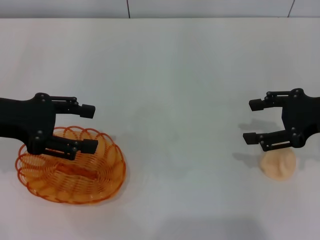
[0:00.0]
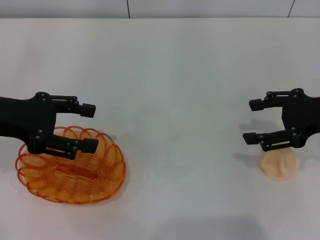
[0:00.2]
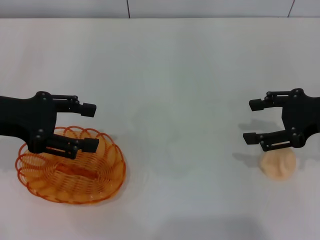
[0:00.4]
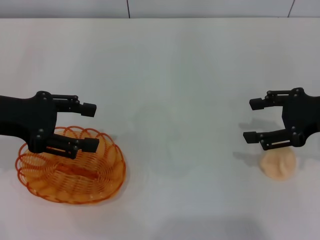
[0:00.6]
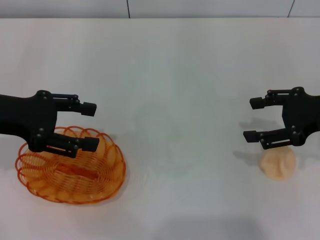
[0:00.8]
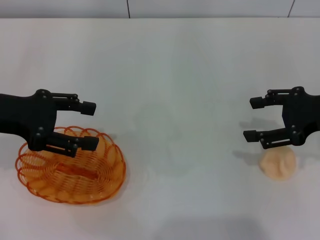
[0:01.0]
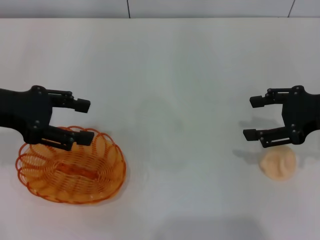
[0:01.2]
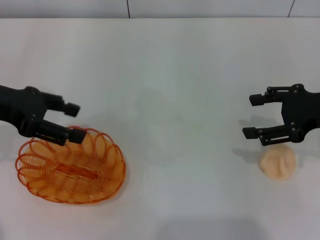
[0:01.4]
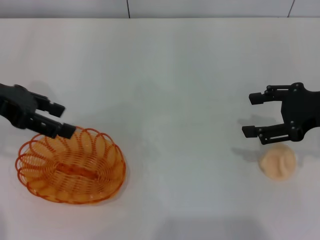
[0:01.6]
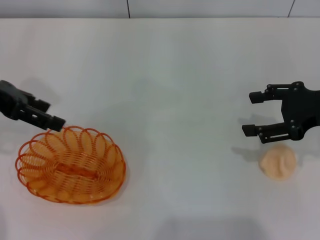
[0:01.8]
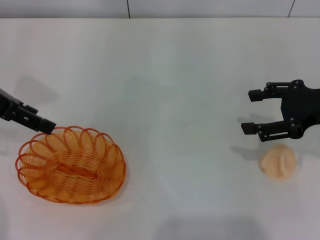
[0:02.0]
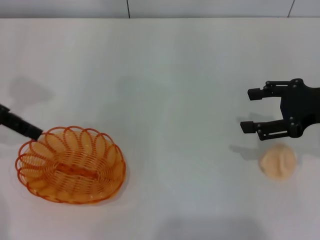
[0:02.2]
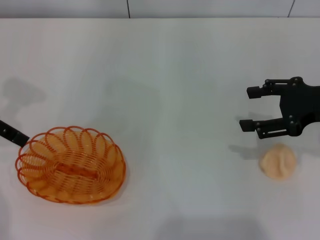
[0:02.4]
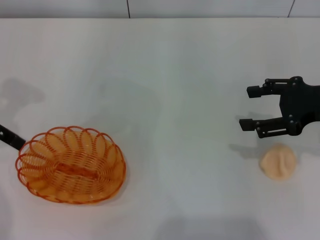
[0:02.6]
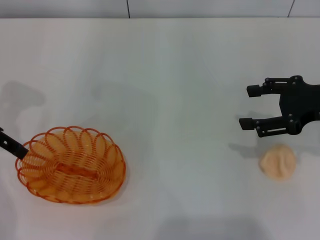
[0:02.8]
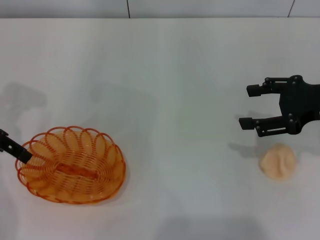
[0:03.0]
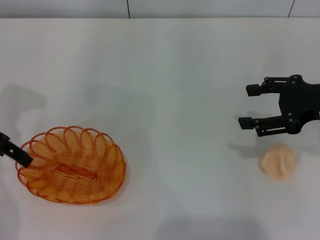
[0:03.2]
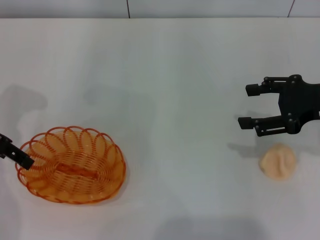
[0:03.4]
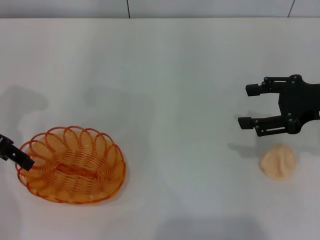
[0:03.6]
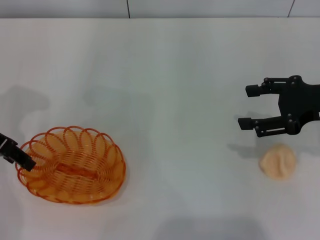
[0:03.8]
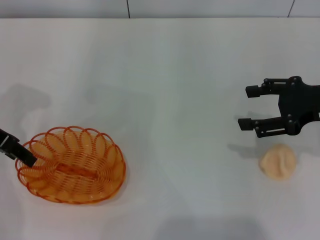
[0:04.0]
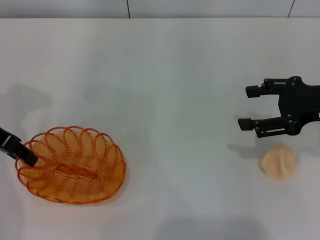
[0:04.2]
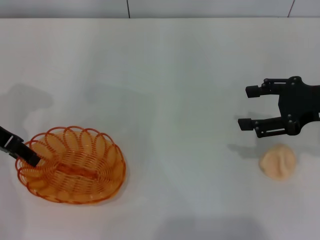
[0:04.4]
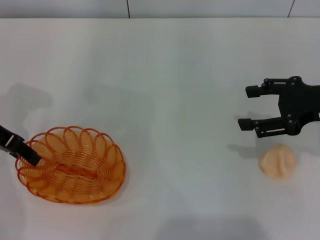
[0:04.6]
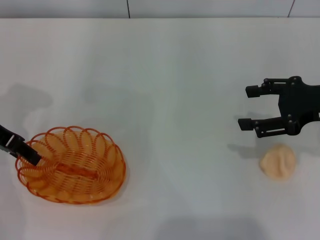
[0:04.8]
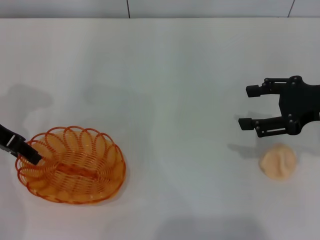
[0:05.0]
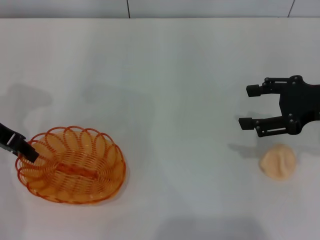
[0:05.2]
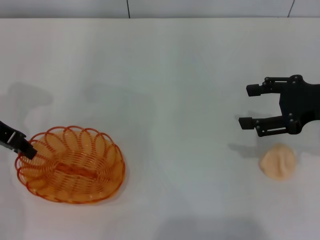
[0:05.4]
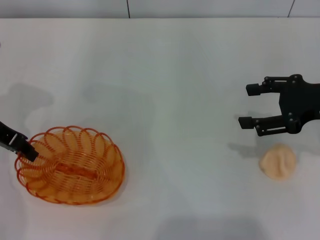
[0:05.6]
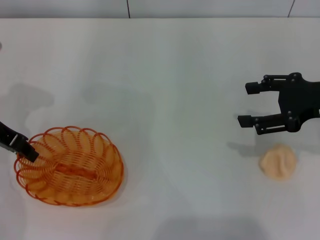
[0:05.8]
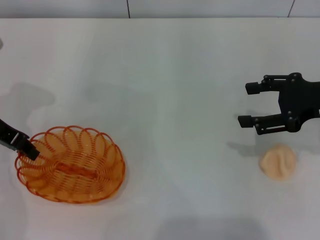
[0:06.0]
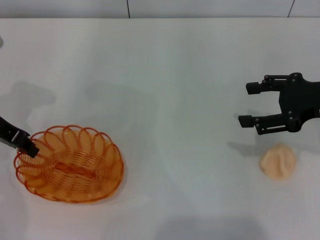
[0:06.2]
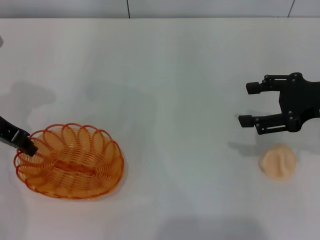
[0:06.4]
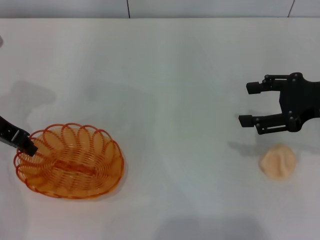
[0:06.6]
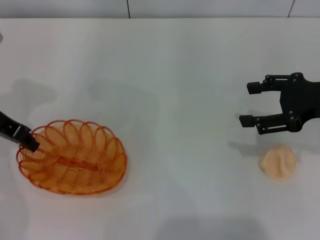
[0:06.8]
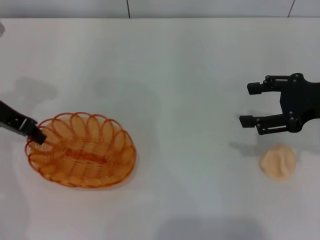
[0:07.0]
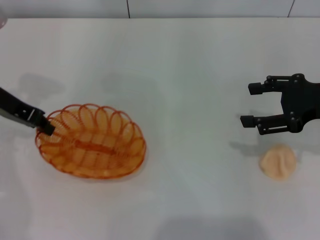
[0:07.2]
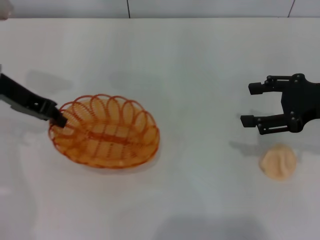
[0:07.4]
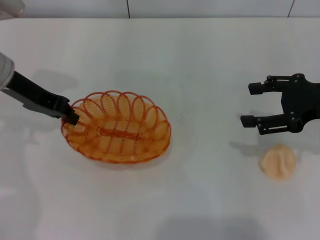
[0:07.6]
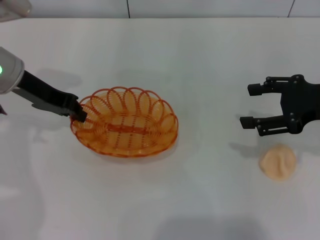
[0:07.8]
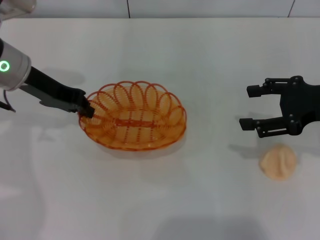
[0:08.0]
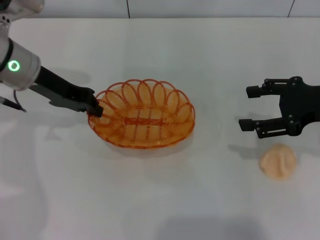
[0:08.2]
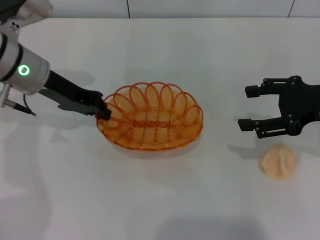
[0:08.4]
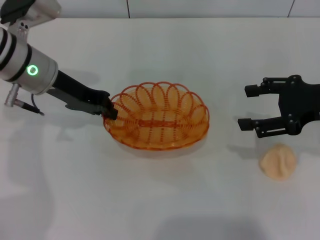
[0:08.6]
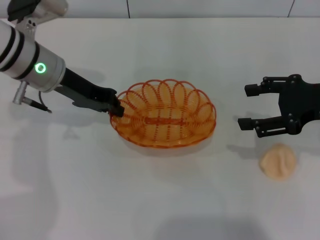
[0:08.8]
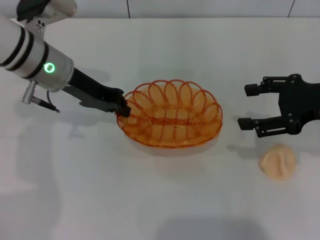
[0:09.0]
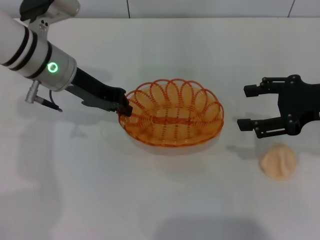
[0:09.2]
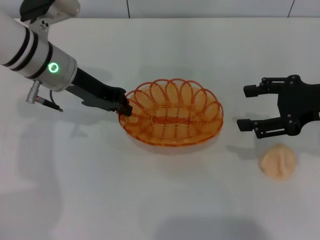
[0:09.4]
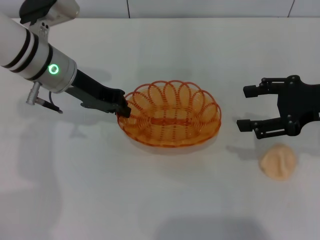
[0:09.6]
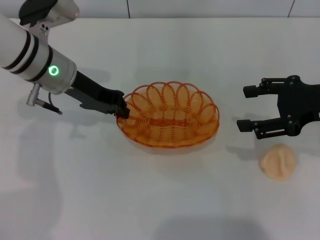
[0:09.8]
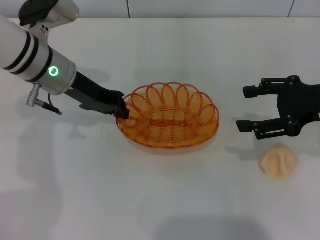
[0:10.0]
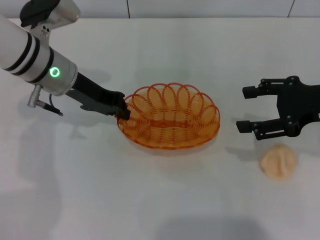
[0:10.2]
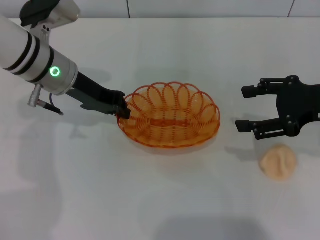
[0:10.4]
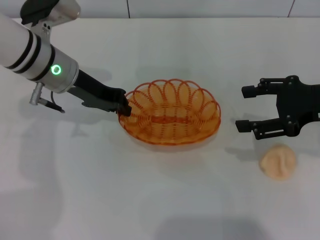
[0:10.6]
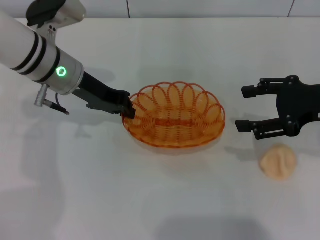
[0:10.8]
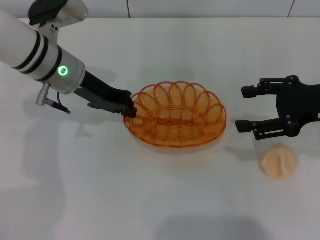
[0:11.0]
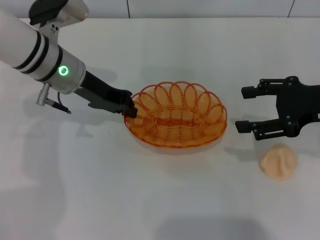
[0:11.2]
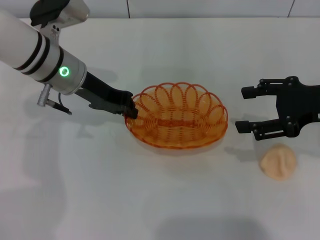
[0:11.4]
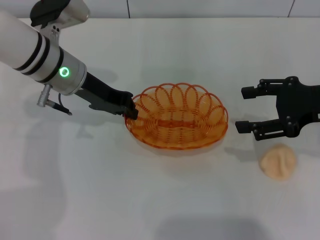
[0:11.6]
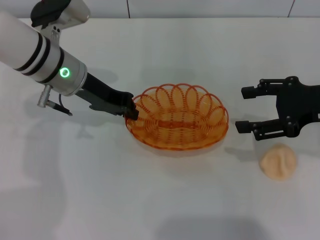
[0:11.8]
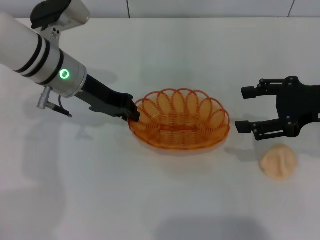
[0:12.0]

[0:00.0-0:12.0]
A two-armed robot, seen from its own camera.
Step, 0:00.0 to 0:07.2: Pick up the basket with the left gripper.
0:00.0 to 0:01.6: The left gripper changes place by roughly 5 cm.
0:03.0 to 0:04.4: The left gripper closes its fingers.
0:04.4 to 0:06.0: The left gripper closes up.
0:06.0 to 0:07.6: The left gripper ends up some 5 cm from where it was.
0:07.6 to 0:09.0: The left gripper travels to the right by roughly 5 cm.
0:09.0 to 0:10.4: The two grippers keep their place.
0:10.4 to 0:12.0: Both grippers stay put.

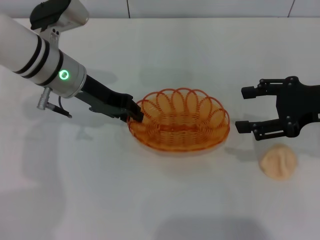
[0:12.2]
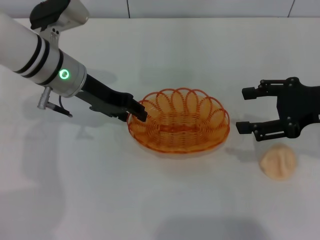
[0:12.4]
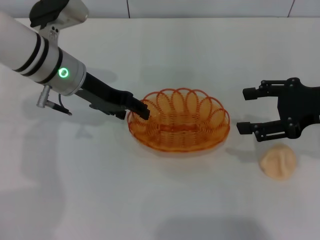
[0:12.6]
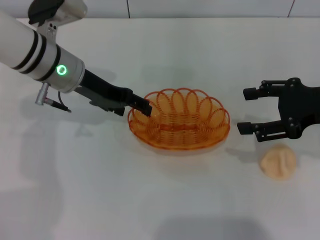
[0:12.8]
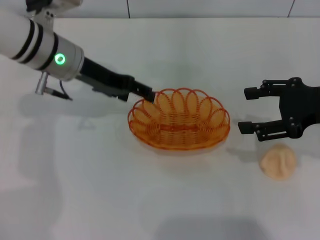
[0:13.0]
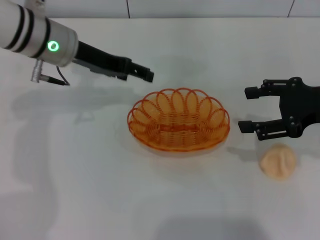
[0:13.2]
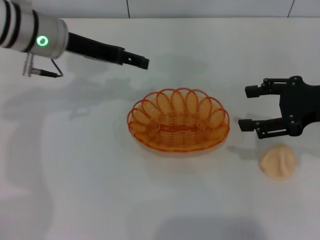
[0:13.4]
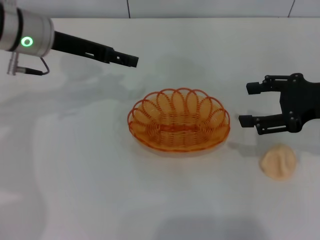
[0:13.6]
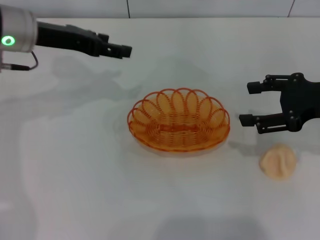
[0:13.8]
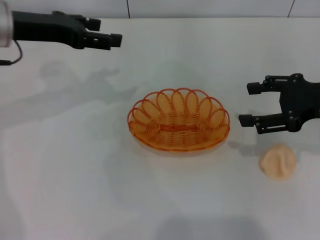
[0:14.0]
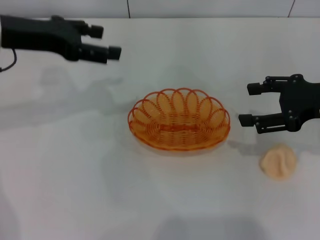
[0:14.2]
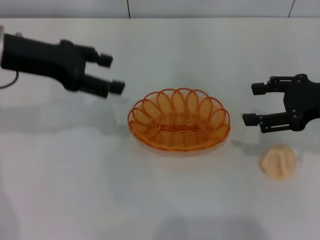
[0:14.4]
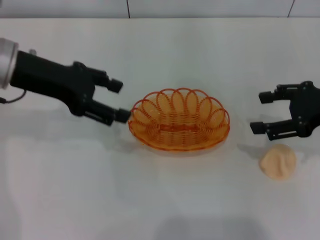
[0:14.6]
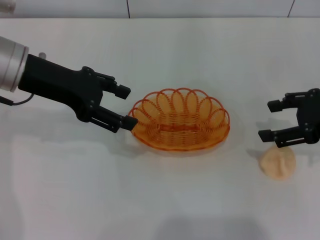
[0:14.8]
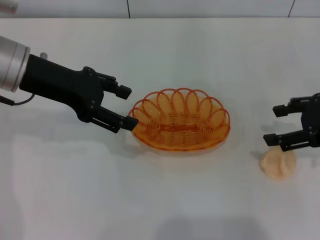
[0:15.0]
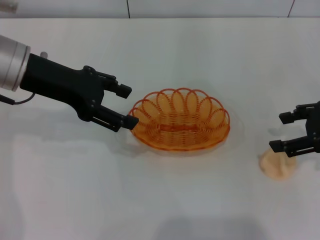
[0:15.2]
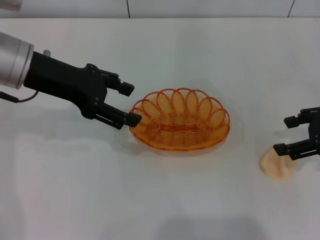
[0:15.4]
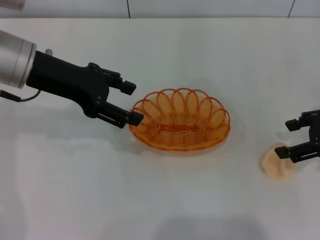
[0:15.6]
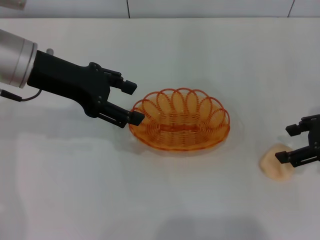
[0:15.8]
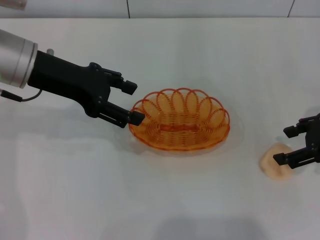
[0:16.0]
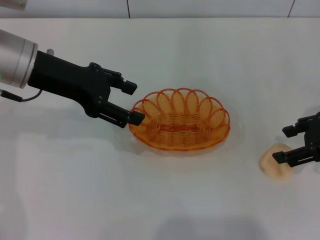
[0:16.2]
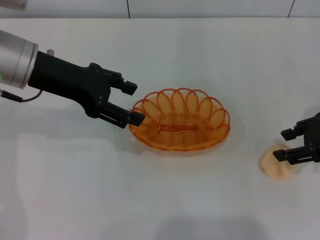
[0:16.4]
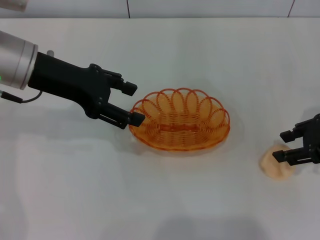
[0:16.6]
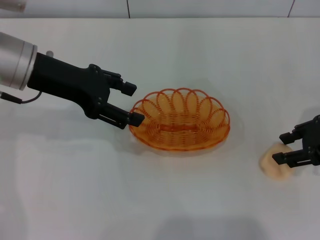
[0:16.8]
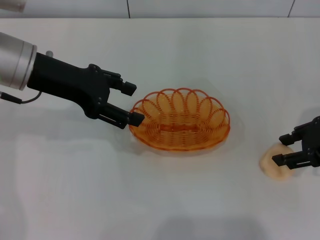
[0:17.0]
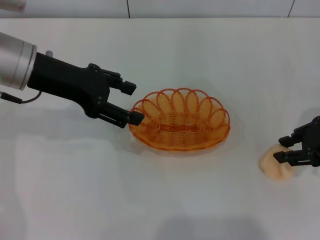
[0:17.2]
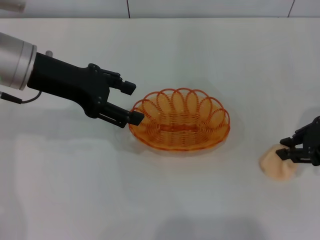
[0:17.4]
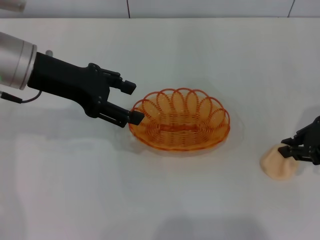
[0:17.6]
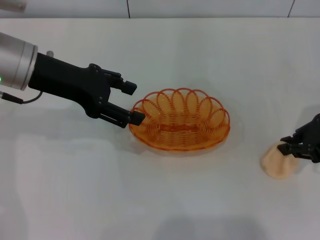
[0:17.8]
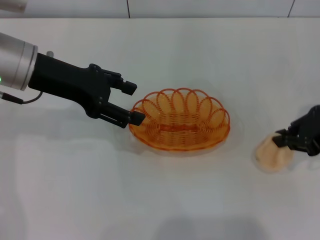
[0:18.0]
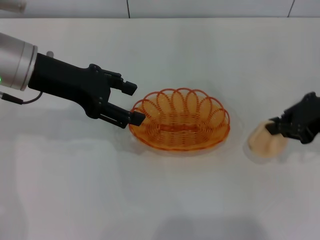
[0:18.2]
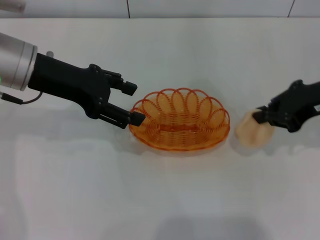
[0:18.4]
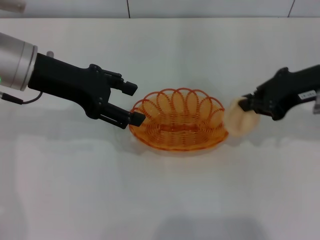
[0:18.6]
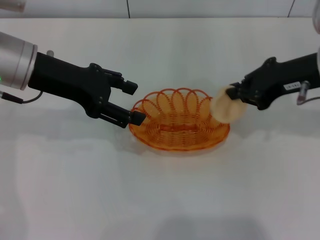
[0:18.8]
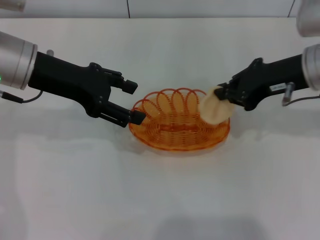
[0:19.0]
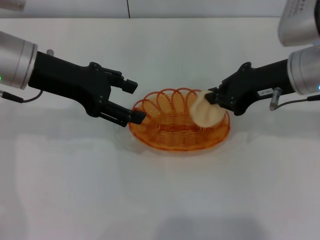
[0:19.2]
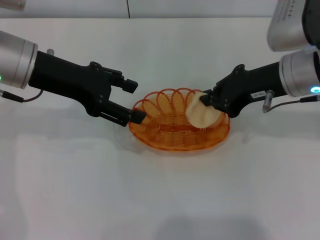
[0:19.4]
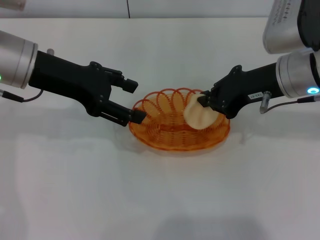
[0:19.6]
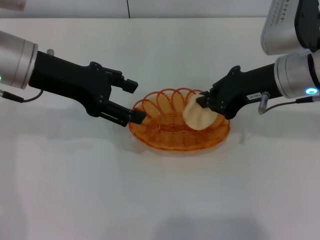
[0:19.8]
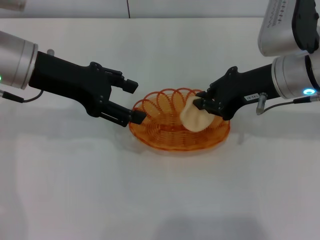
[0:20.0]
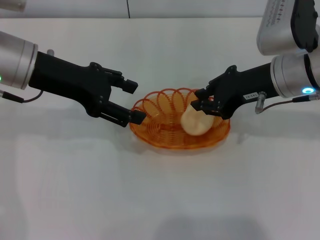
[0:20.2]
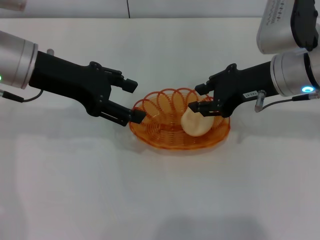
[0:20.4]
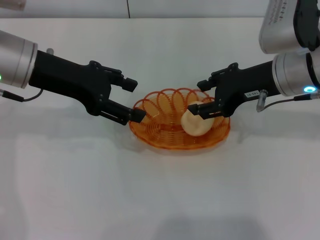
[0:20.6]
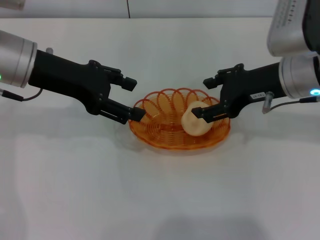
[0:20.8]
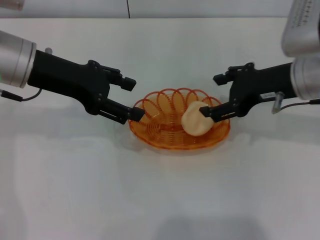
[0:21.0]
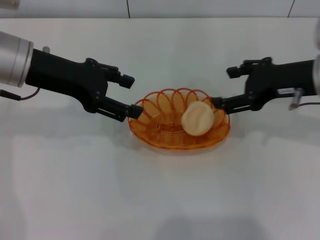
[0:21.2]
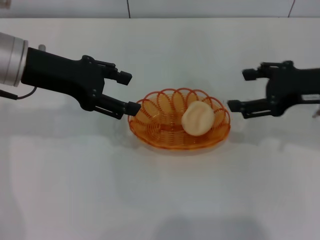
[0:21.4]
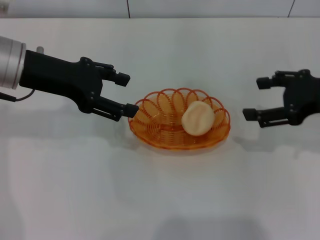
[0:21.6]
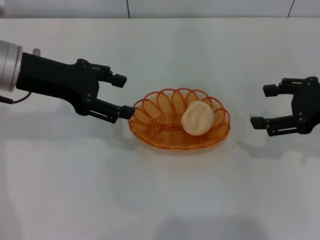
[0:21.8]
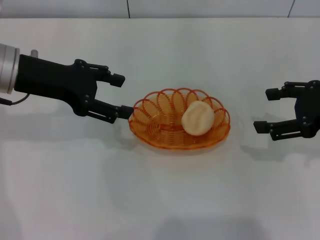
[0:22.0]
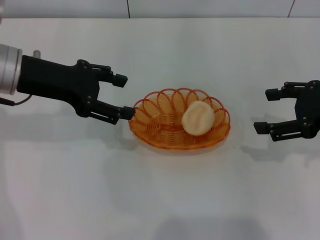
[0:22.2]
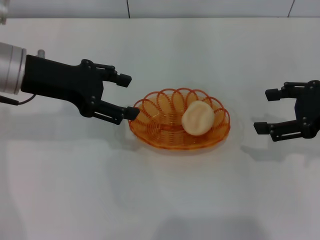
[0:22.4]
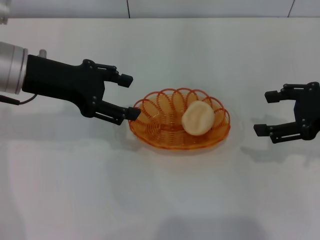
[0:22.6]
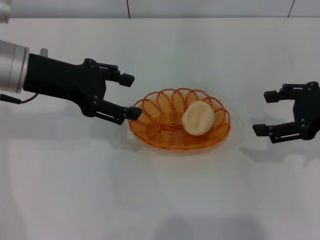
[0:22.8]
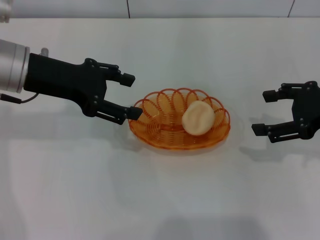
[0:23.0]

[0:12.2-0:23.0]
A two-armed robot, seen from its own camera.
Step, 0:13.4 to 0:18.4: Pick up the egg yolk pastry with the right gripper.
Step, 0:18.6 to 0:21.0: Place the egg yolk pastry into the basket with the right gripper.
0:12.2 to 0:13.8: The left gripper shifts about 10 cm to the left and upward, and opens.
0:15.2 to 0:16.8: The grippers make only small movements.
0:16.8 to 0:18.4: The right gripper shifts by roughly 5 cm, and closes its fingers.
0:18.4 to 0:20.0: The right gripper travels to the left by approximately 10 cm.
0:20.0 to 0:21.4: The right gripper travels to the right by some 5 cm, and opens up.
0:21.4 to 0:23.0: The grippers stay close to where they were, moving slightly.
